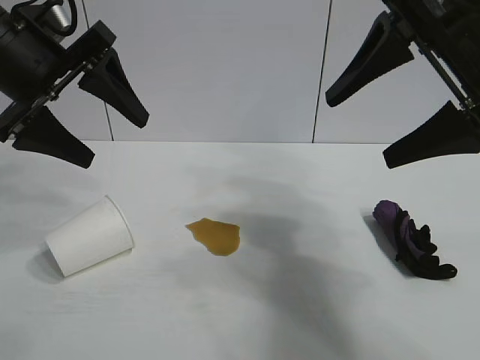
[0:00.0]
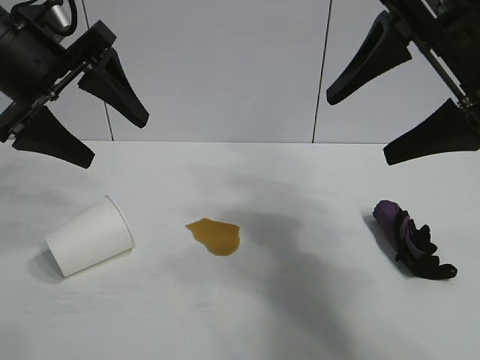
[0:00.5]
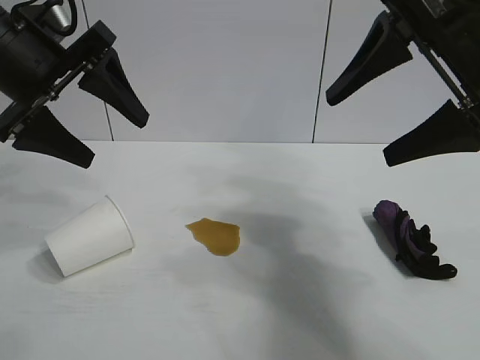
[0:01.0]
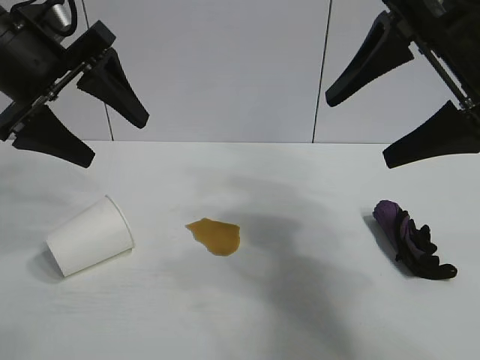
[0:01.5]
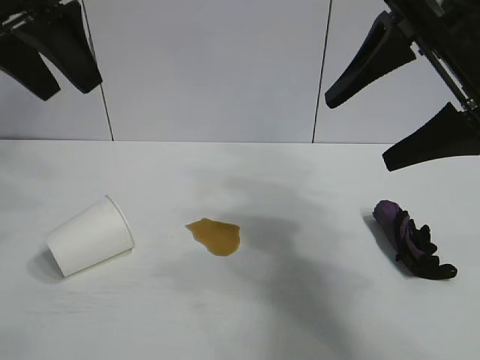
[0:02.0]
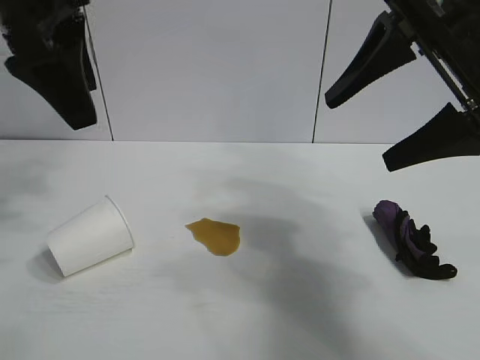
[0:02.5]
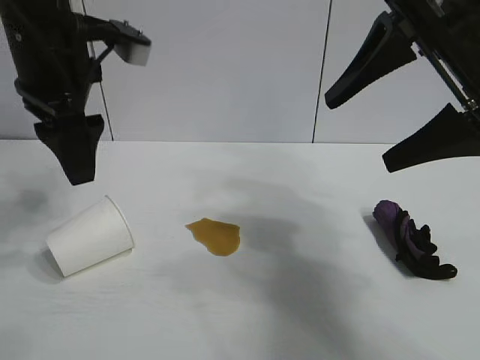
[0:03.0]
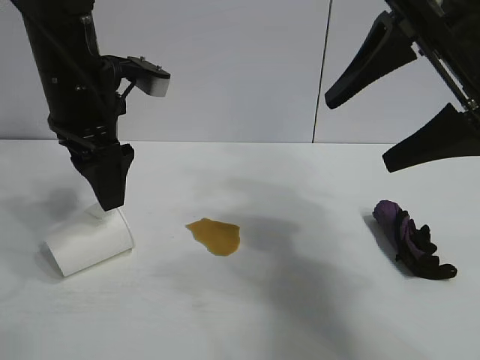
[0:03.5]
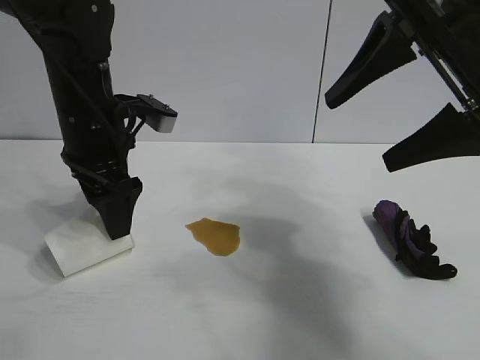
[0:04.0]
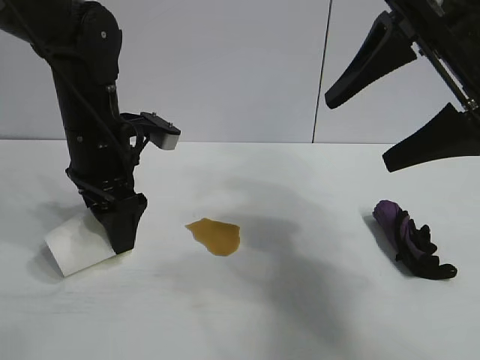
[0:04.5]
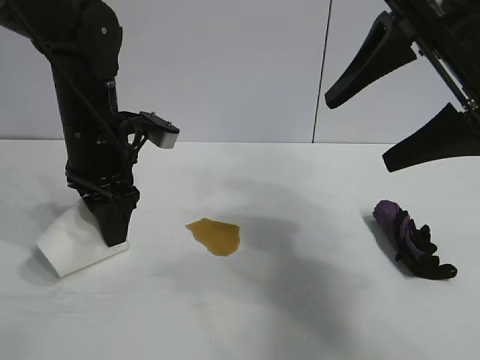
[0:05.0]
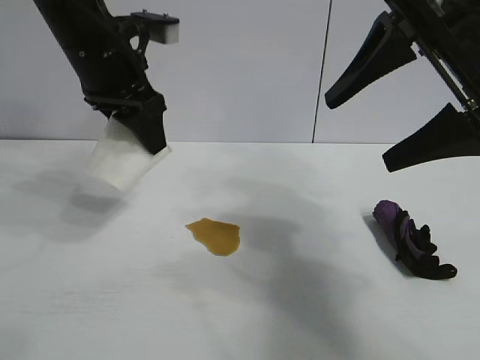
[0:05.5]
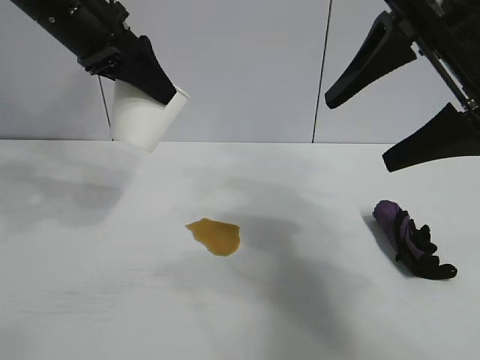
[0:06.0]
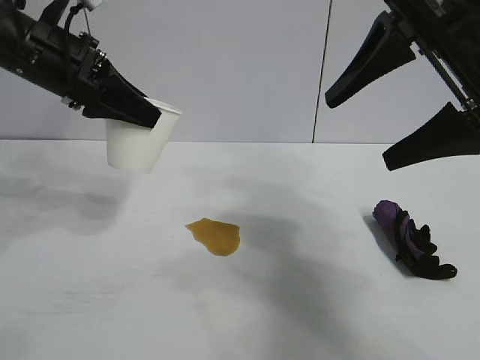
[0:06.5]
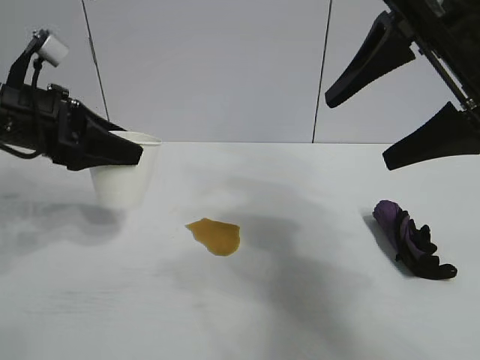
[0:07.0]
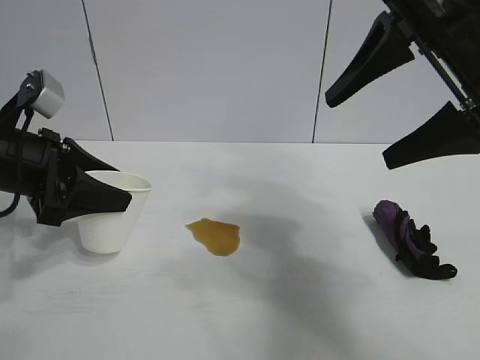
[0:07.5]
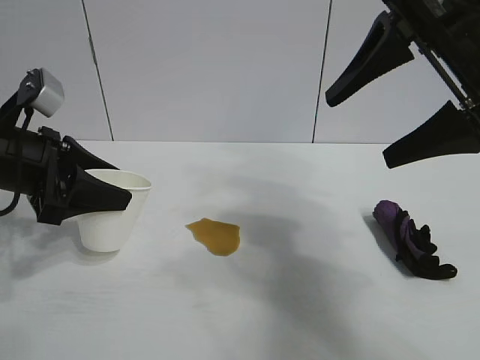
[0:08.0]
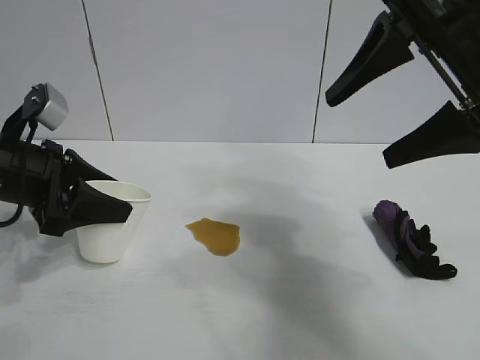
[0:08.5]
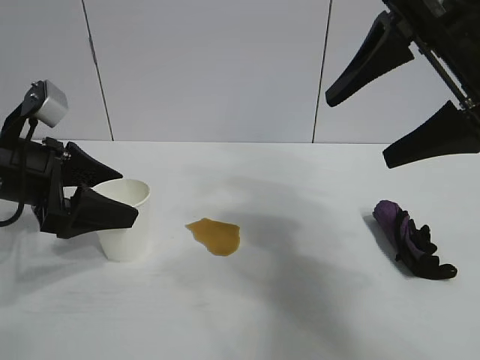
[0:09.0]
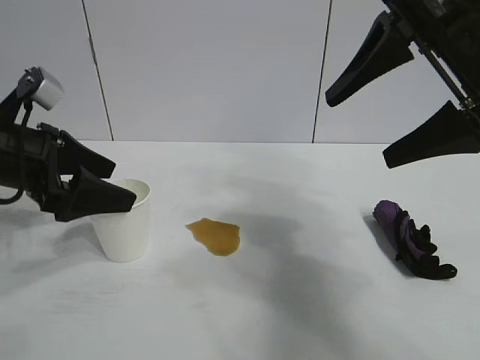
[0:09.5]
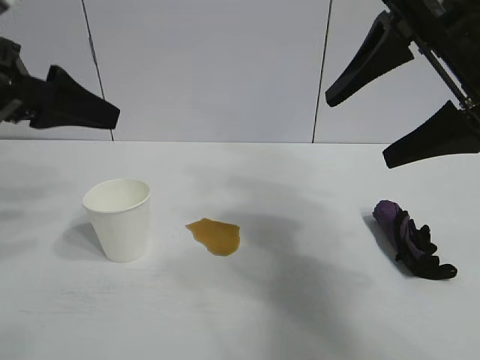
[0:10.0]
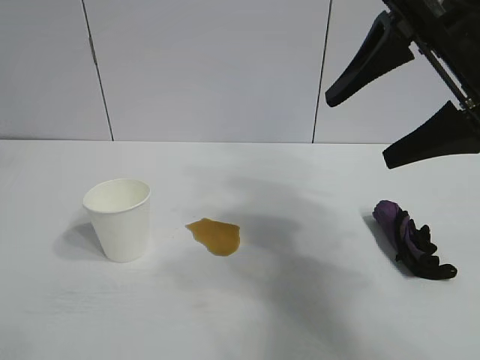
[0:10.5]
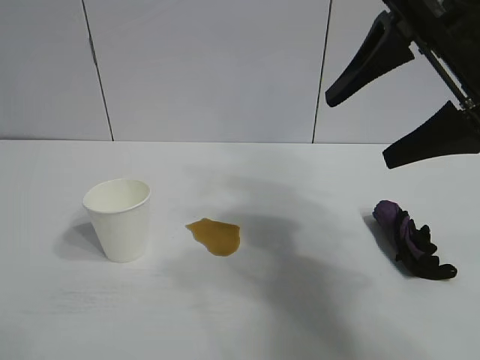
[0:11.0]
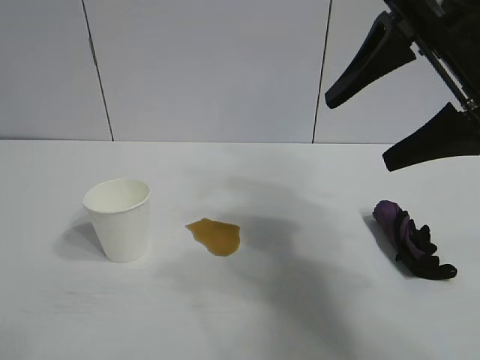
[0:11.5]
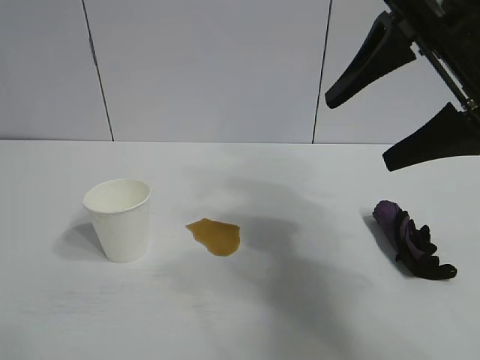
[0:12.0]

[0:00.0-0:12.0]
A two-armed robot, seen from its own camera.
Task of the whole recording: the left gripper pick up the fallen cup and place it upright, the right gripper grasp the black rag and wipe the stain on the table, the right gripper put the black rag back in its original position.
Step, 0:02.0 to 0:04.5: Grasp the paper cup with left gripper.
Step, 0:05.0 to 0:08.5: Stand the paper cup upright with left gripper.

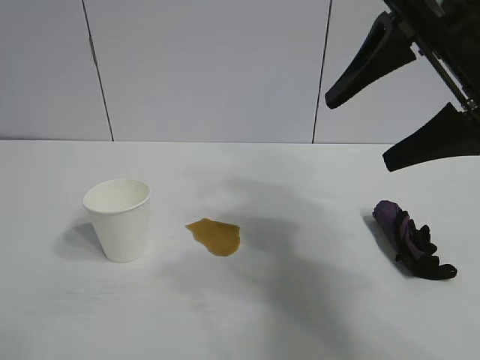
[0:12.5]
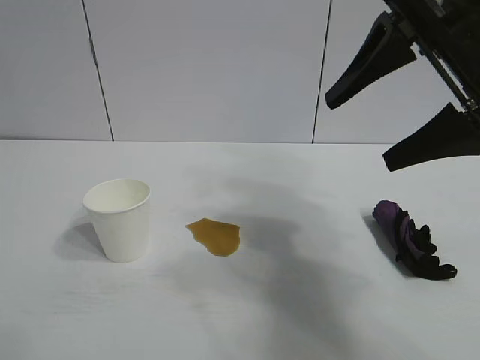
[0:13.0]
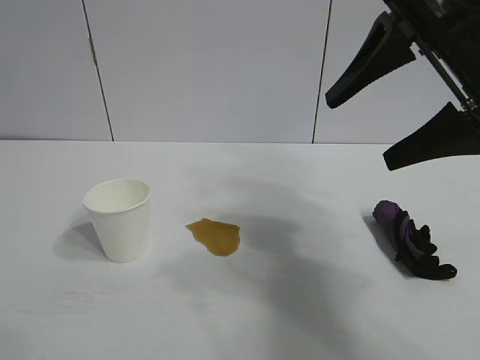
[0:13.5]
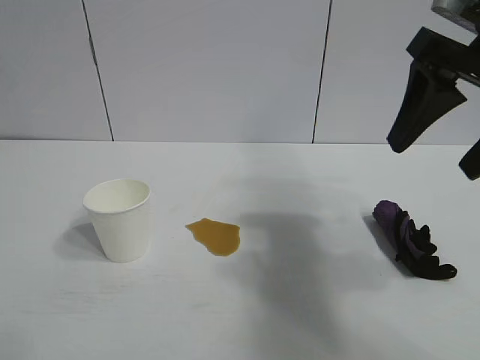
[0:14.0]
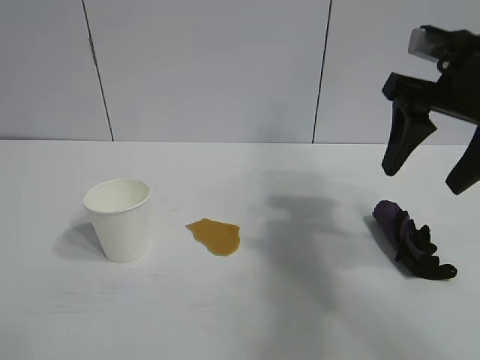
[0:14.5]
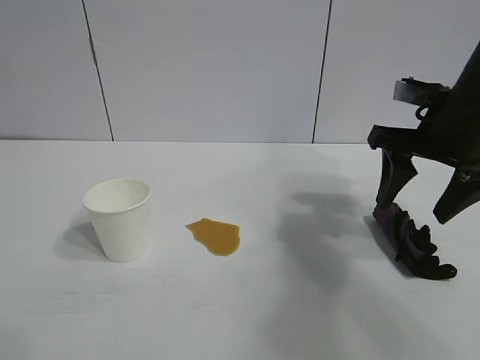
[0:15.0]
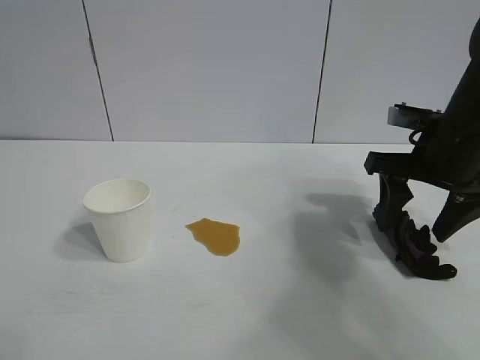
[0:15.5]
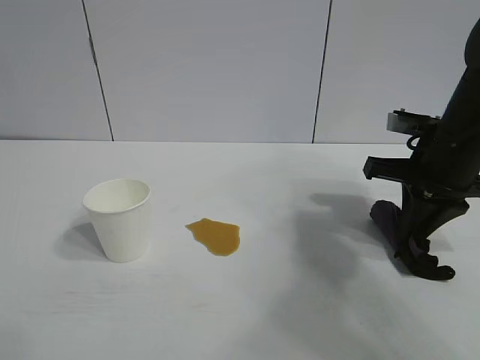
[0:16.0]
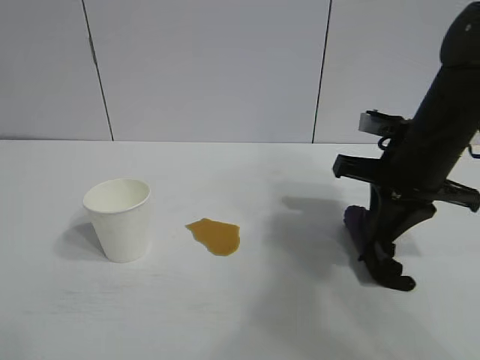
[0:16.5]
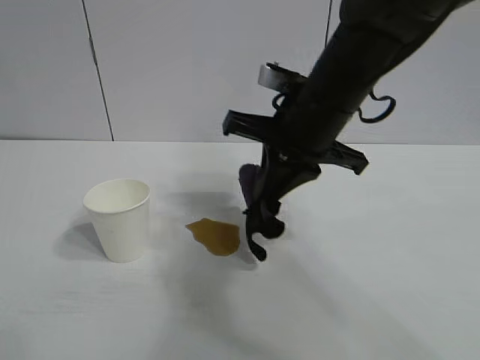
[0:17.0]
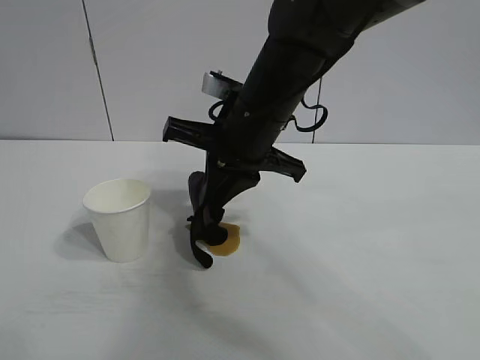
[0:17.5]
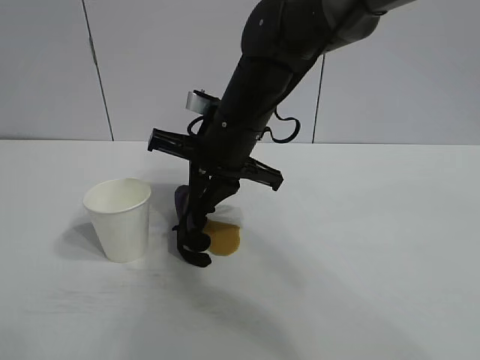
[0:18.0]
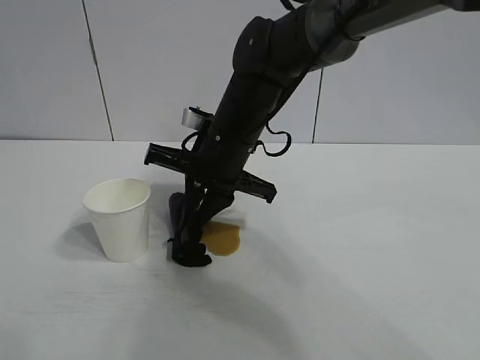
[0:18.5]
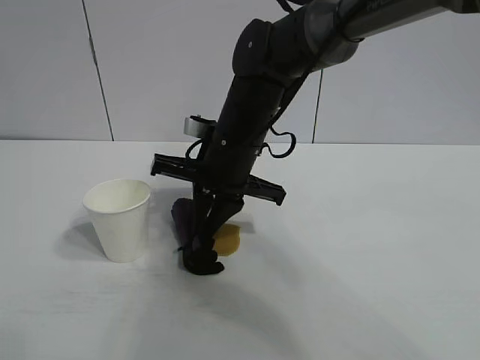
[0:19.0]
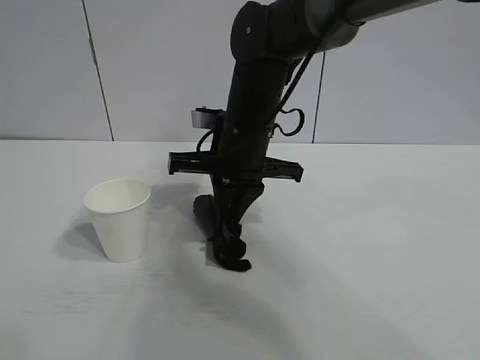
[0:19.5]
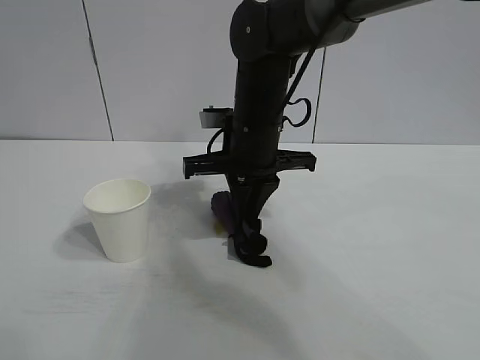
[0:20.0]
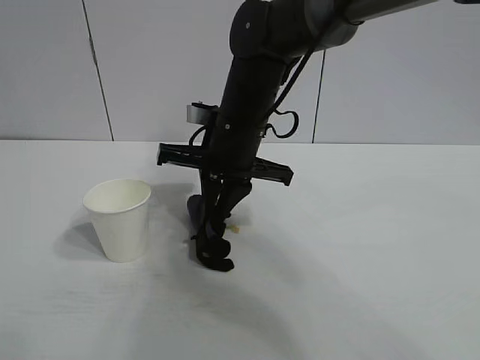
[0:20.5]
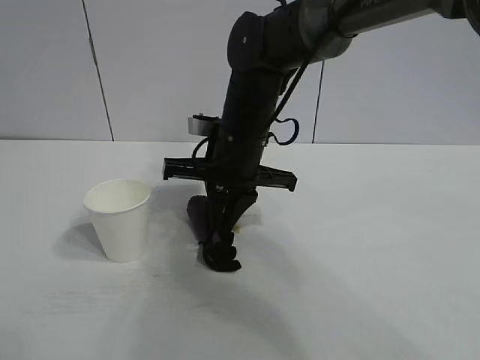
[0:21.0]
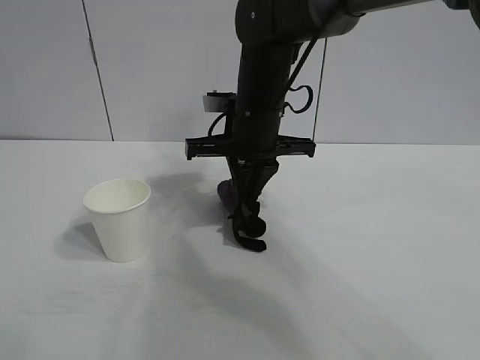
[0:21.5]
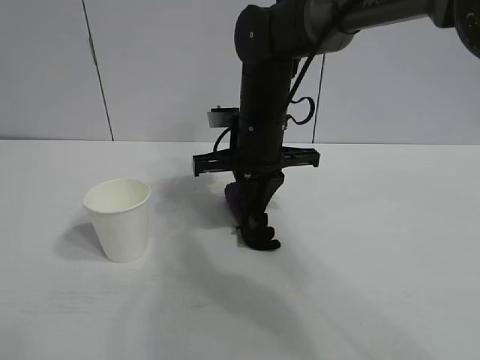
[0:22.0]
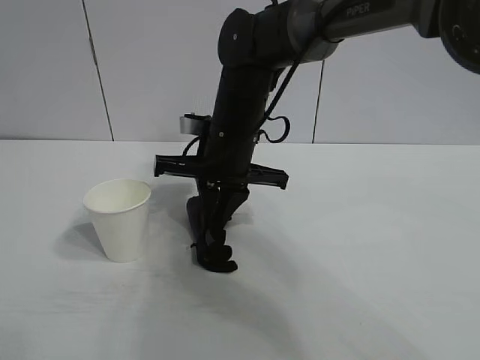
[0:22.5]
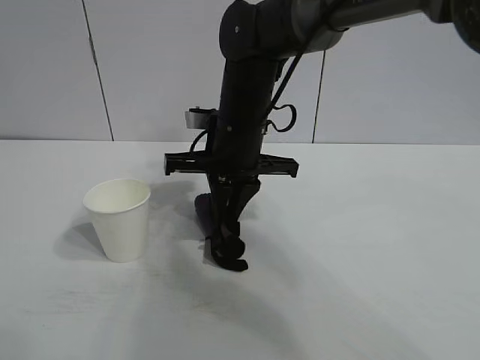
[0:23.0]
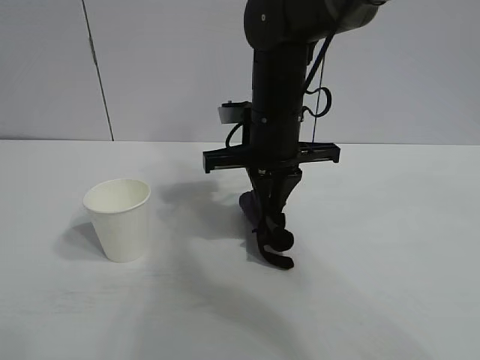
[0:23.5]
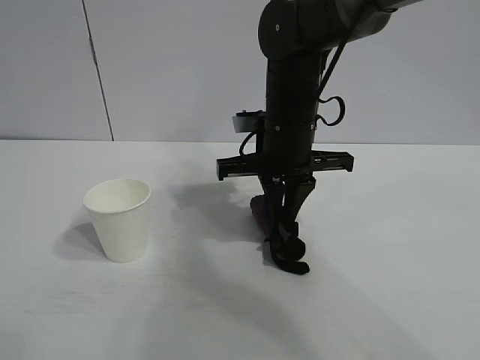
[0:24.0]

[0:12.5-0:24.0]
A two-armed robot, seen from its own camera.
Task of the whole recording: the left gripper pick up the fallen cup and place it upright, the right gripper grasp the black rag and wipe the stain on the table, the right gripper put the black rag back in its original position.
Step, 0:12.5 to 0:16.0: Grasp the rag with right gripper.
Step, 0:16.5 to 0:22.5: Wipe the stains off the table with the rag with right gripper.
